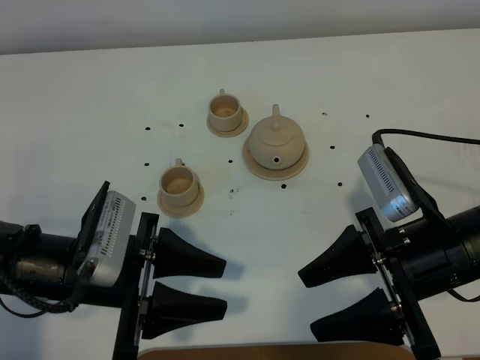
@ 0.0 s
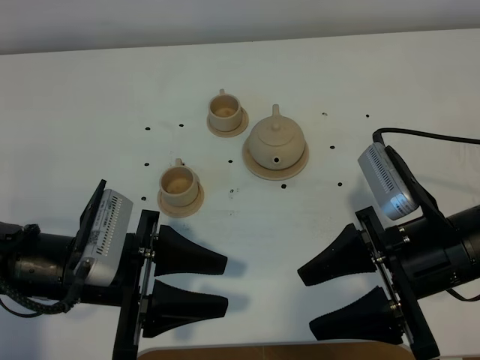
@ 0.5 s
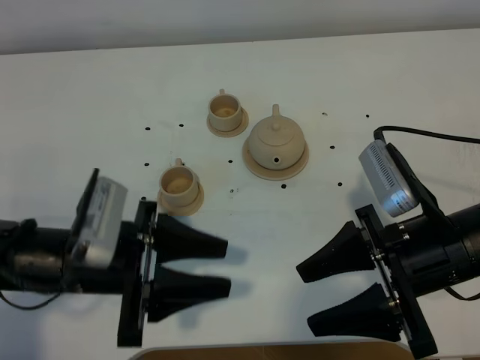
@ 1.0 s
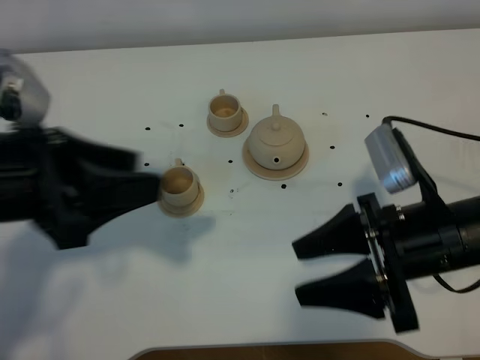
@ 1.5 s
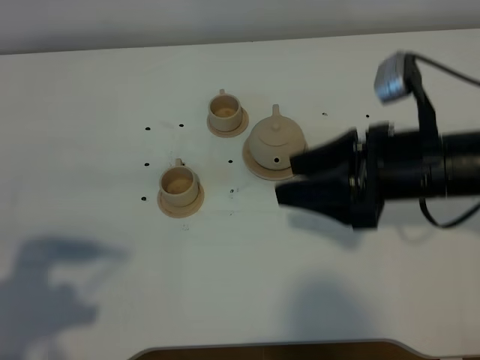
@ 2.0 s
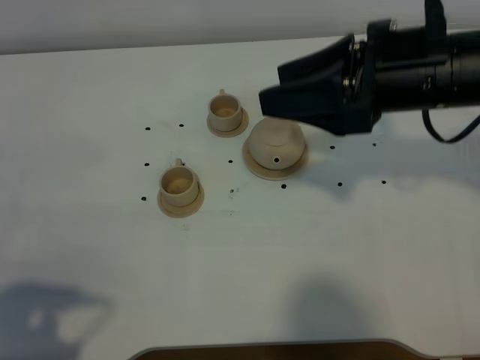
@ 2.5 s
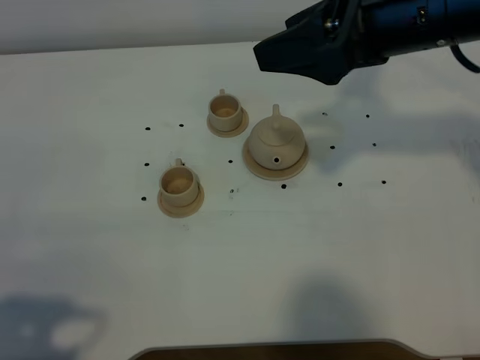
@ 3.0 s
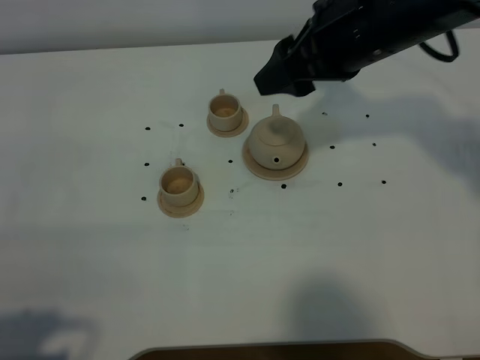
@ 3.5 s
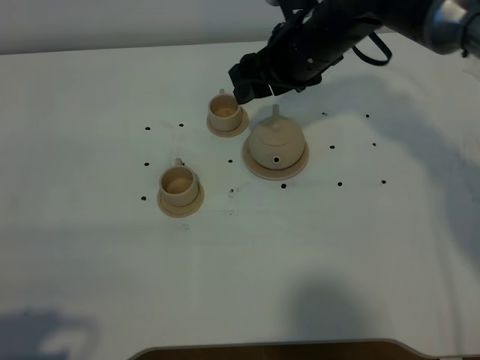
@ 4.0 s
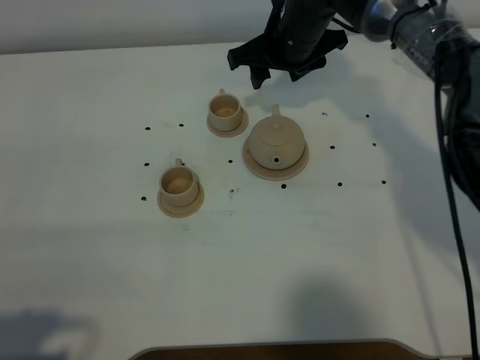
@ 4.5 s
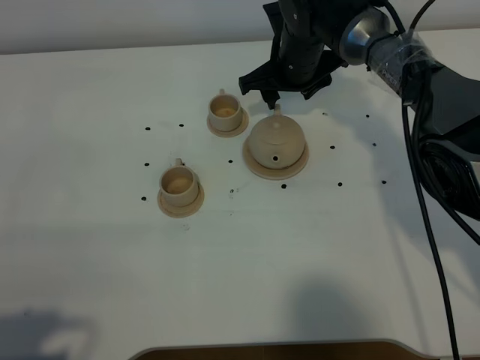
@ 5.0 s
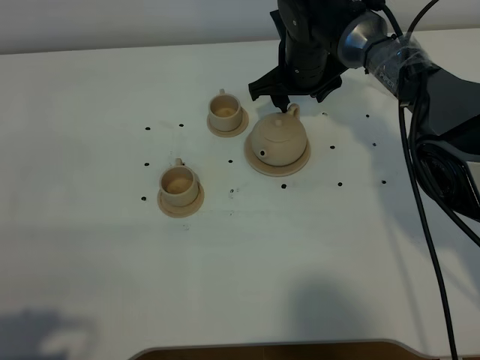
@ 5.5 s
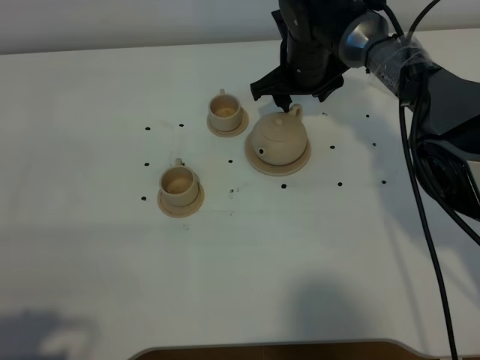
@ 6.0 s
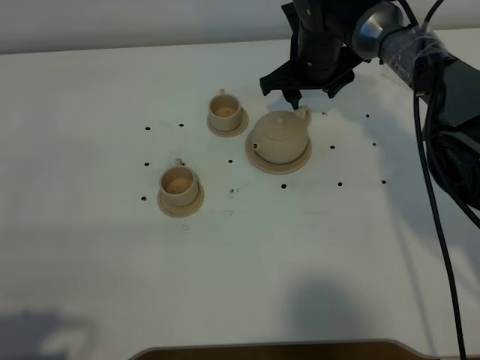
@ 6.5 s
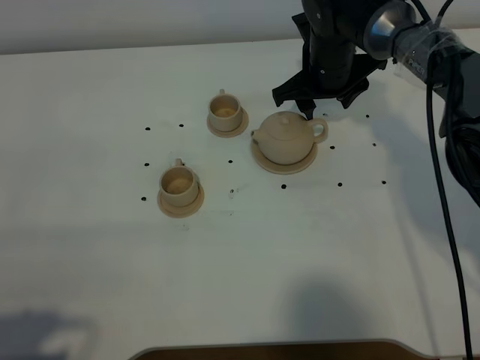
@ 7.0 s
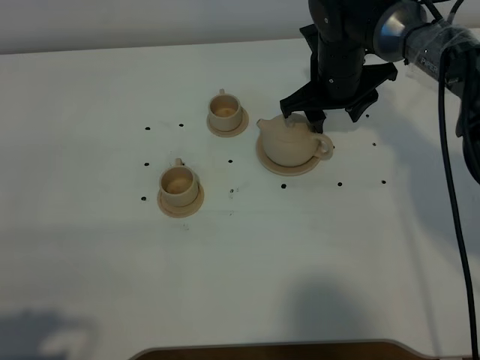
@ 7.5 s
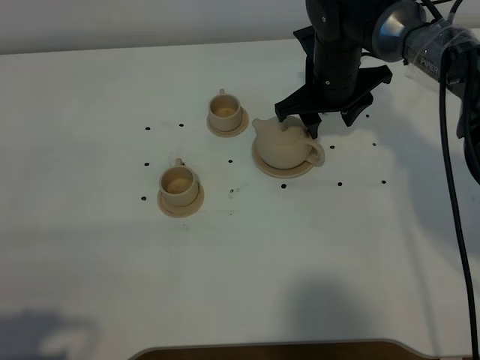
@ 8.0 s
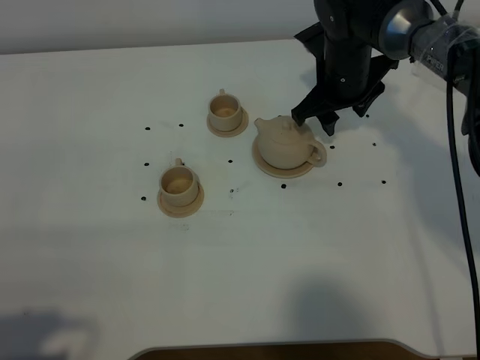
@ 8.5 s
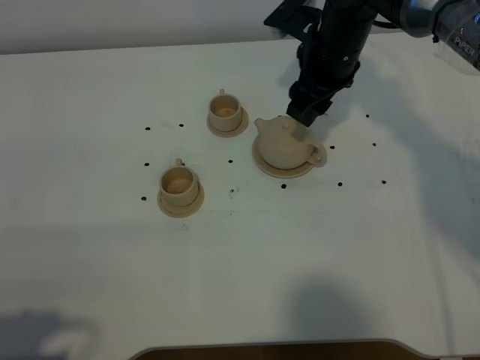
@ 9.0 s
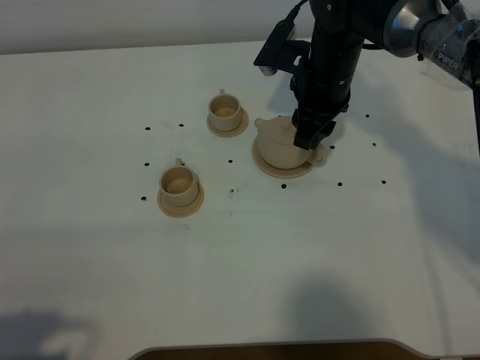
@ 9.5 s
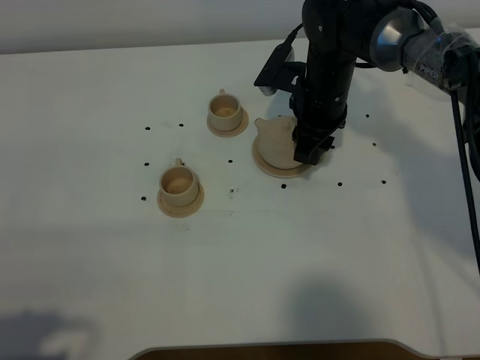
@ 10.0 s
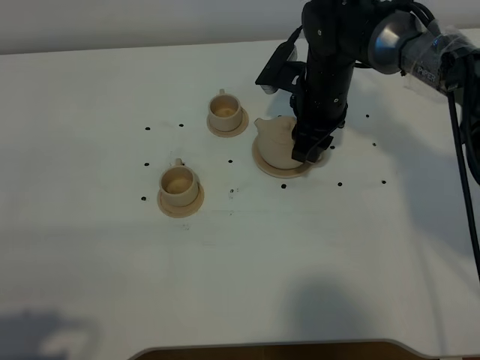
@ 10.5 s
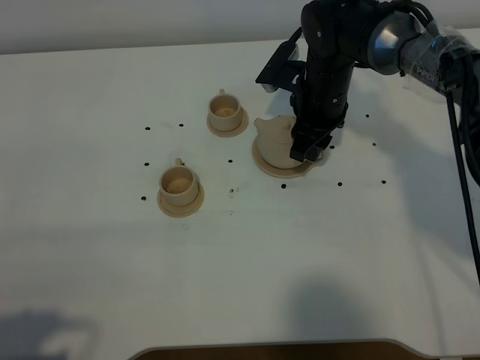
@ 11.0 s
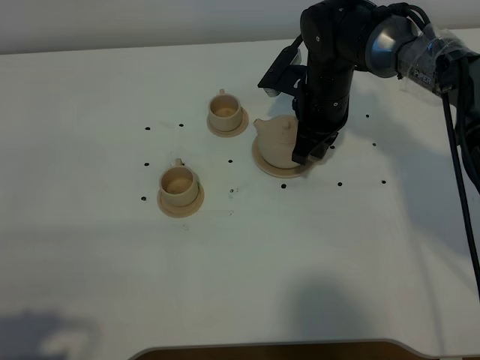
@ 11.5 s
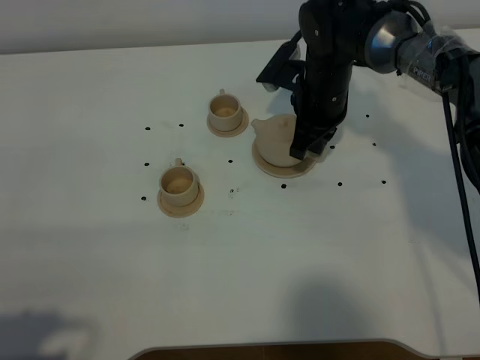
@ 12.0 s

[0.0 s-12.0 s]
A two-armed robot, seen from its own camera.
Task of the whole recording: grasp the brown teapot and pour the tea into the two brown teacups one by one, put the brown teapot back in its original place.
0.0 to 2.0 s: The right gripper shifts approximately 5 cm forward. Meanwhile the left gripper moves to the left, upward and backward, approximately 20 cm.
2.0 to 4.0 s: The right gripper heads forward, covering about 20 cm. The left gripper moves backward, roughly 10 cm.
4.0 to 6.0 s: The right gripper goes roughly 10 cm downward and forward.
6.0 to 8.0 s: The right gripper changes place by some 5 cm.
10.0 to 12.0 s: The right gripper closes up.

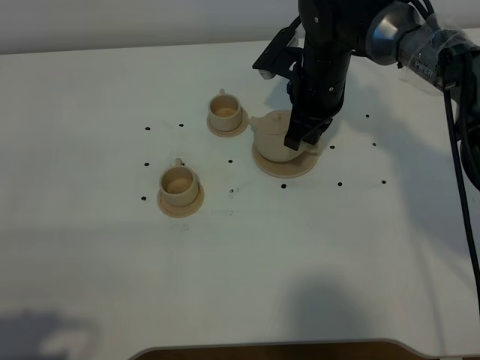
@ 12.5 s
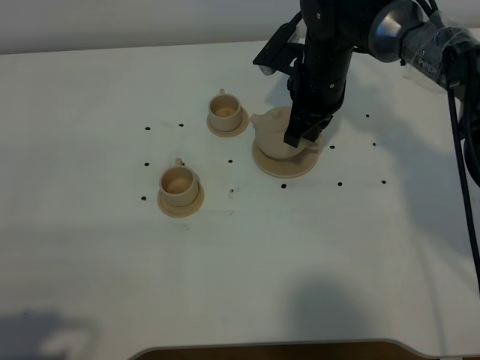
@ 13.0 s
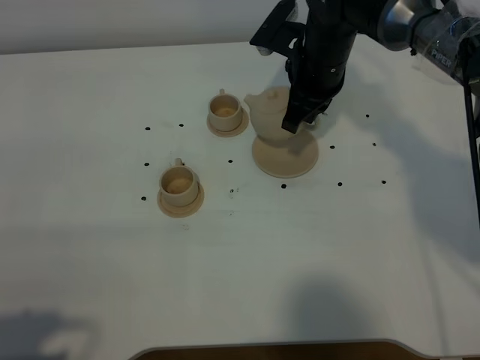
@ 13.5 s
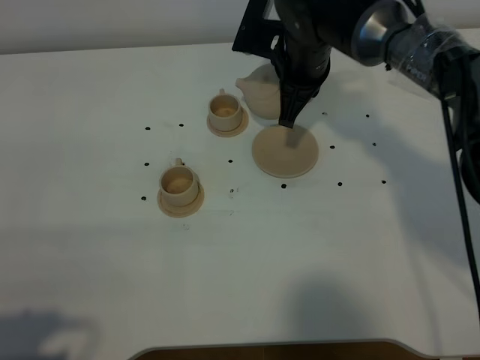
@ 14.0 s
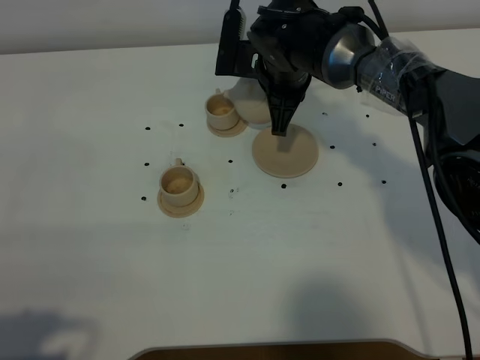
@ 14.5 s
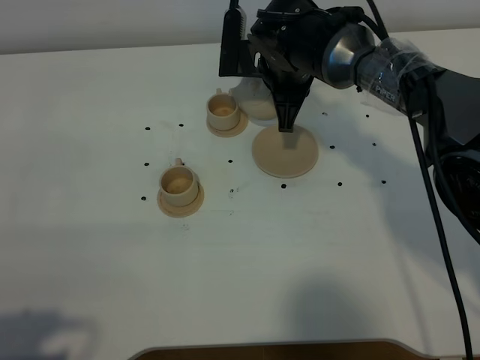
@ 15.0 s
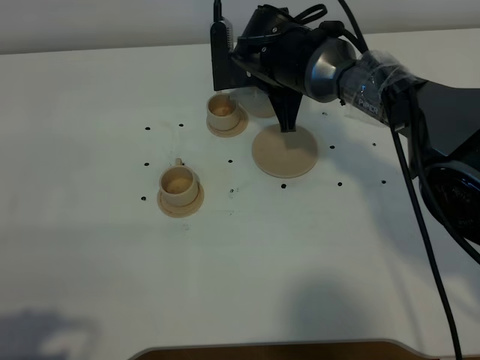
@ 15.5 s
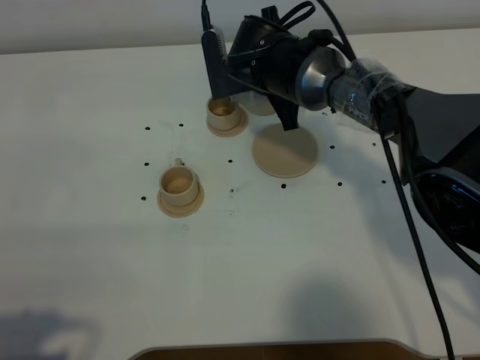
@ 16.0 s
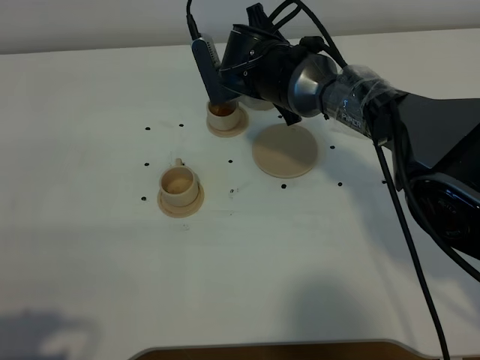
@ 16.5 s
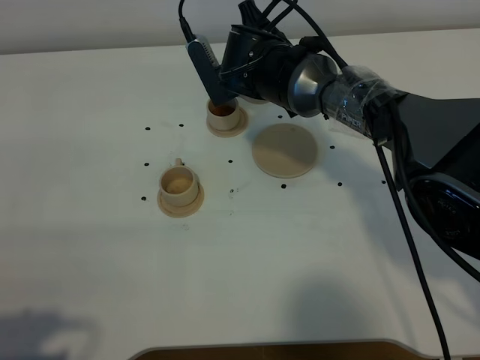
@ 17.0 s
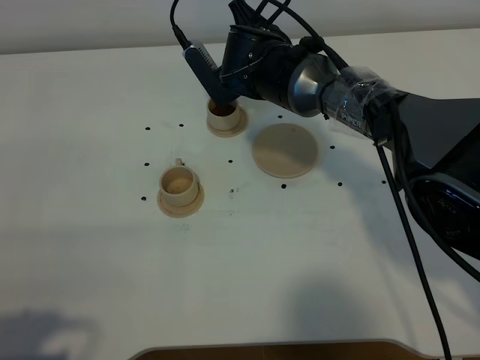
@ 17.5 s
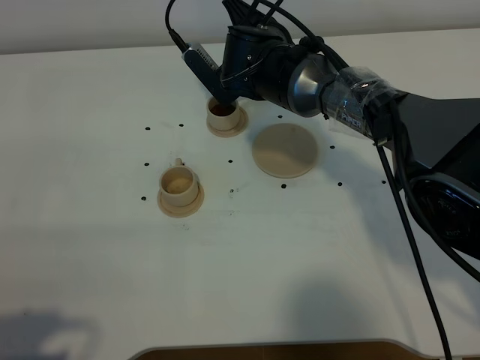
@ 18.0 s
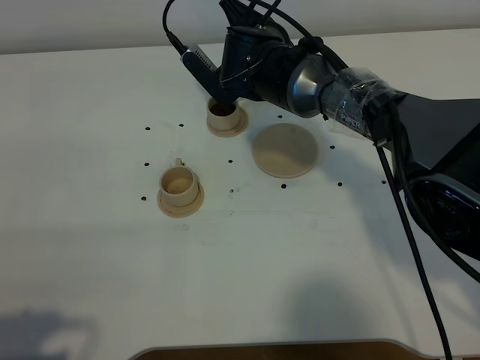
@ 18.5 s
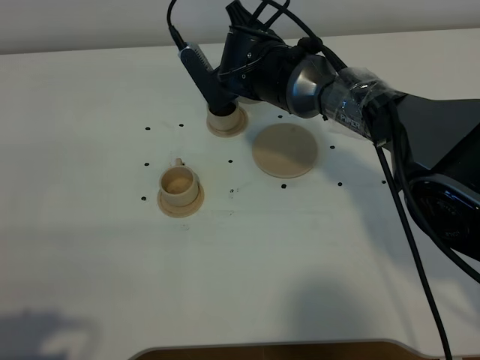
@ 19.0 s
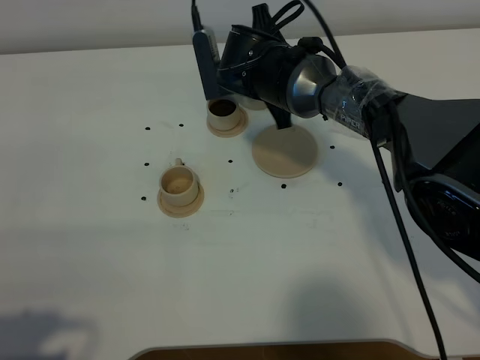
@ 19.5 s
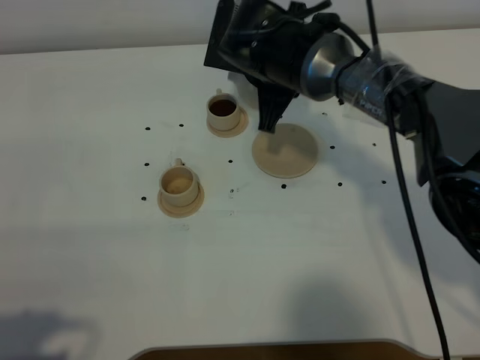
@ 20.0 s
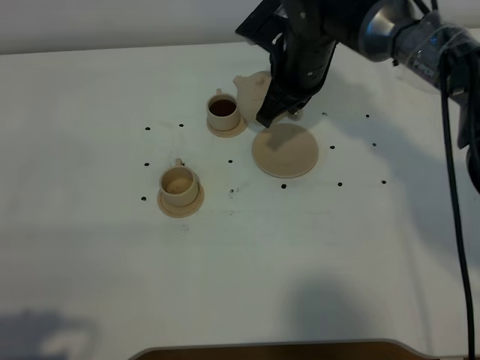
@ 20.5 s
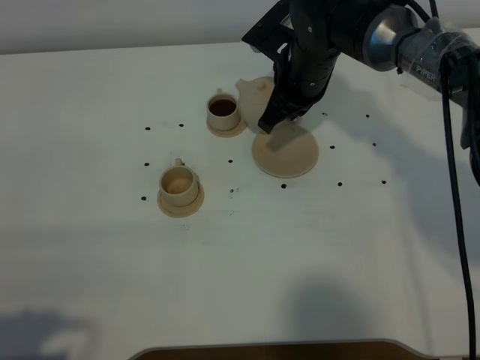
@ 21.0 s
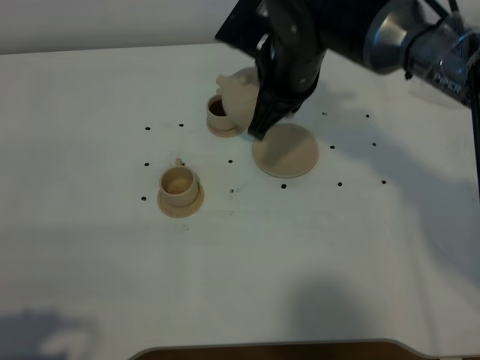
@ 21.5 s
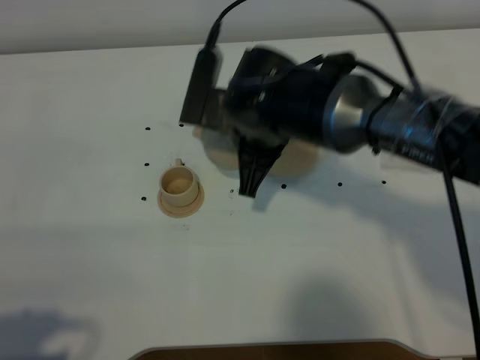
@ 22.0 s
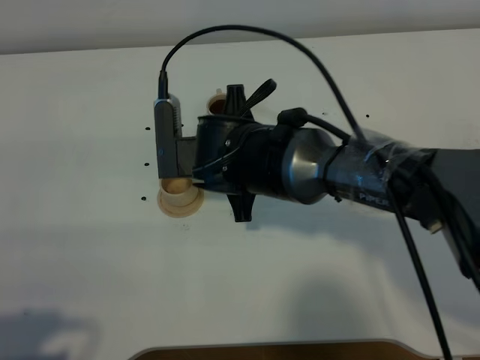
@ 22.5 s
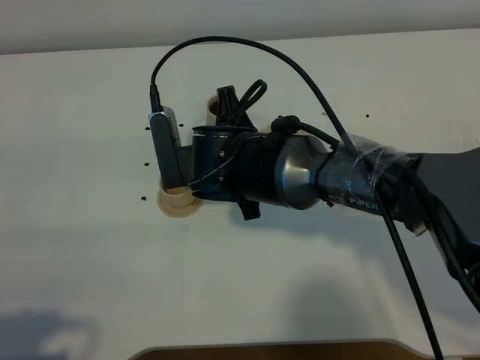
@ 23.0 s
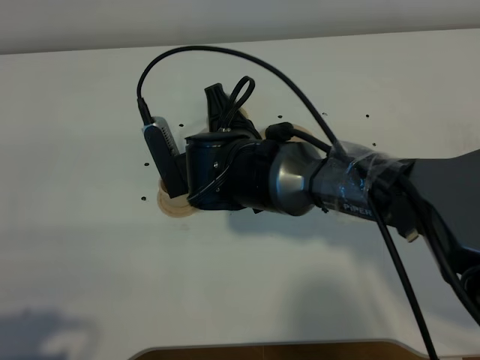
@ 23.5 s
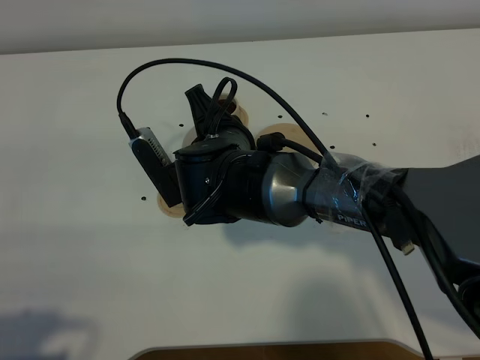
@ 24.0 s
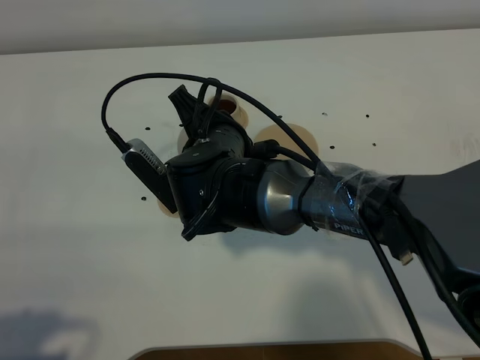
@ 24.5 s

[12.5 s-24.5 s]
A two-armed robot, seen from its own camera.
Task of the whole recording: grasp the brown teapot and pour the tea into the two brown teacups one by one, put the brown teapot back in its original place.
18.5 to 20.5 s: The right gripper moves to the right, roughly 5 cm.
20.5 to 22.5 s: The right gripper travels backward and to the left by some 15 cm.

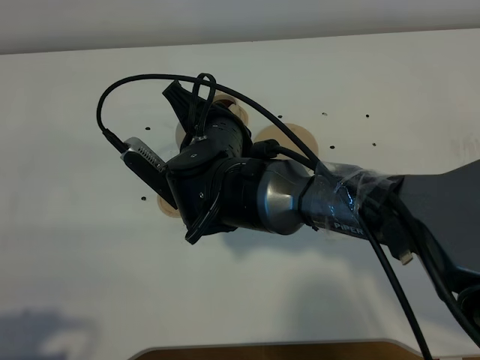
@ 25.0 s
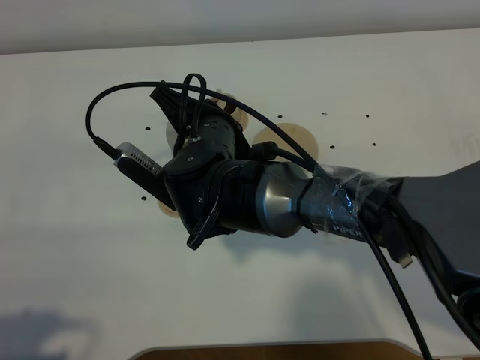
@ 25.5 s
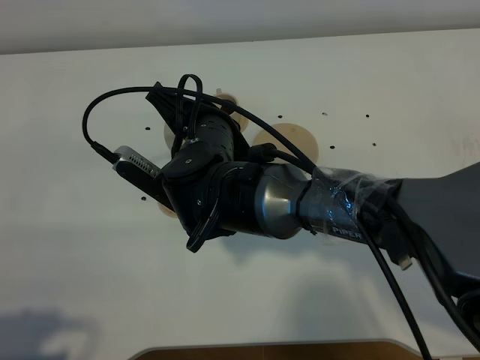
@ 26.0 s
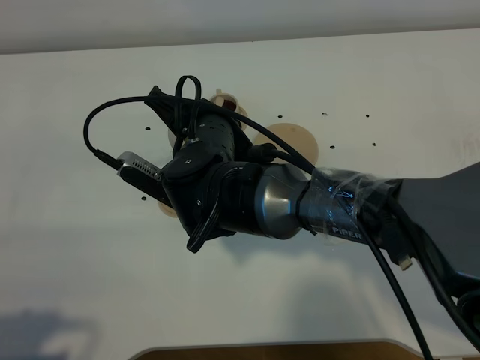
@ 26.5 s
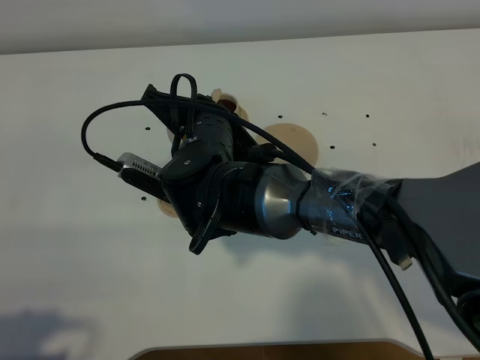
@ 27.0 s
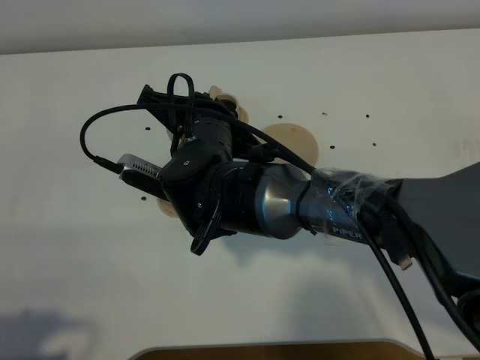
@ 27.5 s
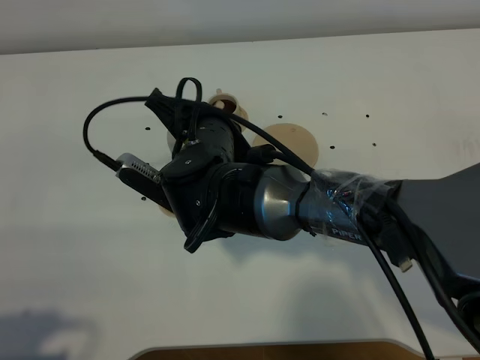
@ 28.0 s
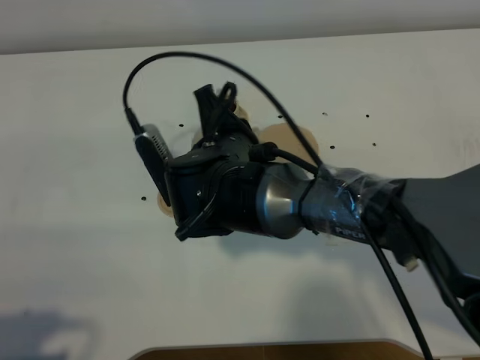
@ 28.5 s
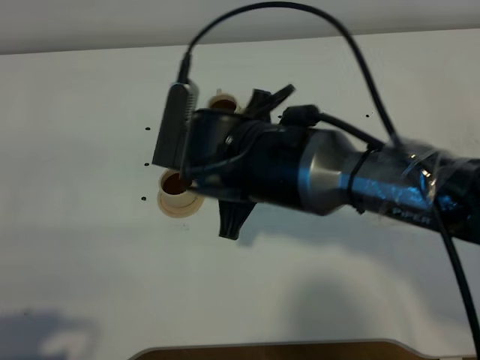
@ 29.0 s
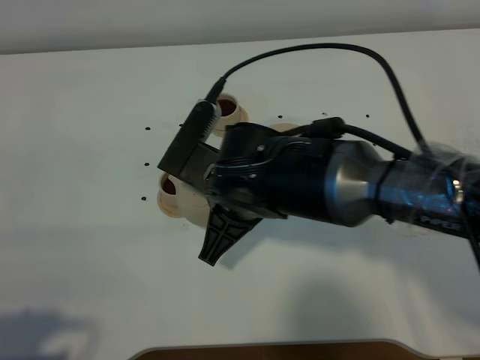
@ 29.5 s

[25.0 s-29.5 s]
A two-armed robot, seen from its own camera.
Task of the whole recording: grasp the brown teapot and pour the tea into the two brown teacups one by one, put the brown teapot back in its original place.
Step, 25.0 to 28.5 s: Pour tea into the teacup with the right gripper.
25.0 to 27.0 s: The grippers move only a little.
27.0 to 29.5 s: The right gripper heads backward, covering some 5 cm.
